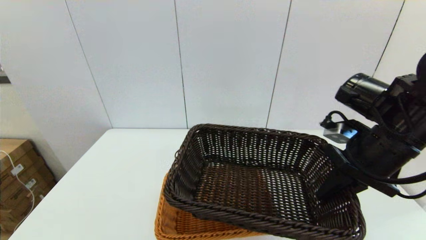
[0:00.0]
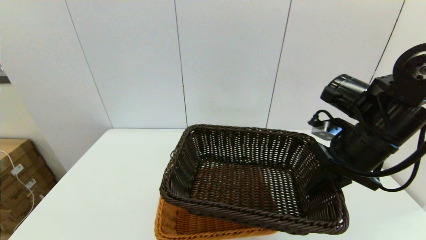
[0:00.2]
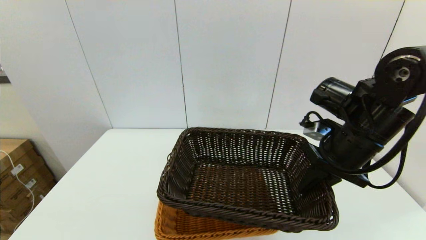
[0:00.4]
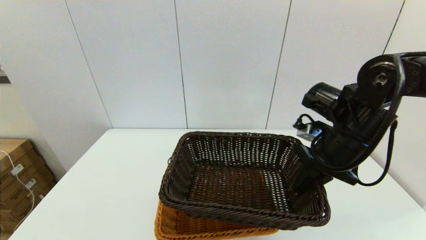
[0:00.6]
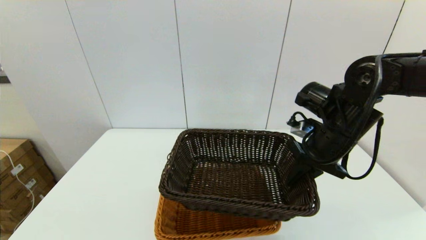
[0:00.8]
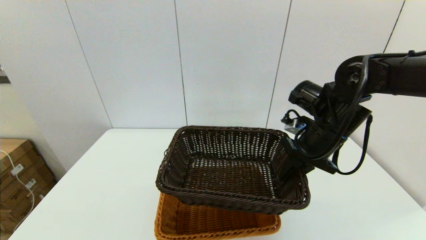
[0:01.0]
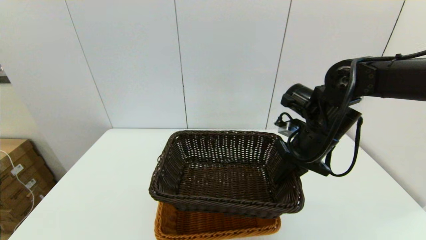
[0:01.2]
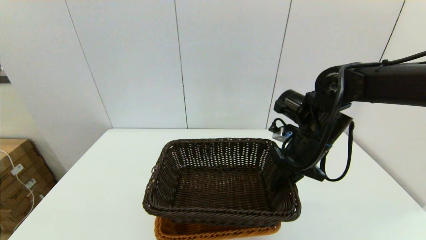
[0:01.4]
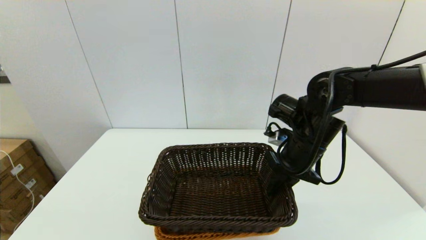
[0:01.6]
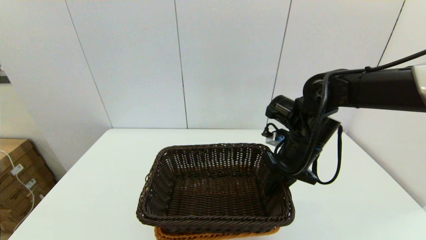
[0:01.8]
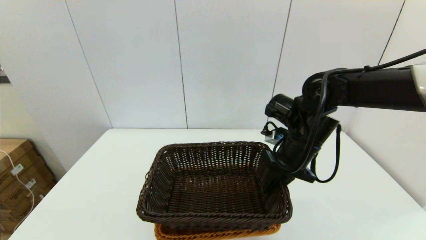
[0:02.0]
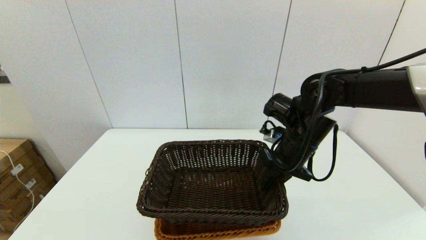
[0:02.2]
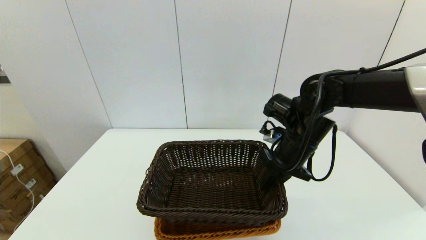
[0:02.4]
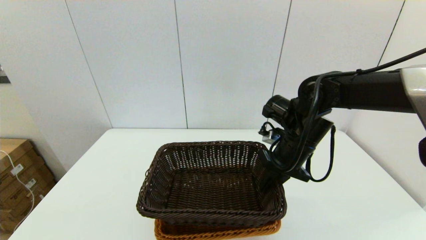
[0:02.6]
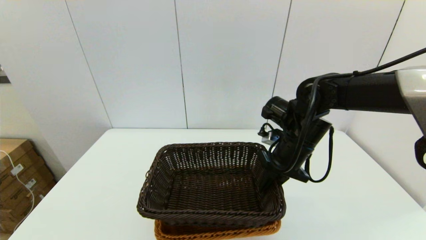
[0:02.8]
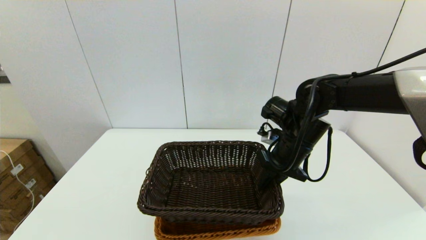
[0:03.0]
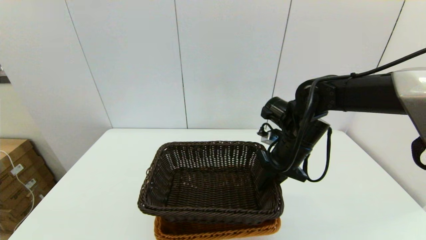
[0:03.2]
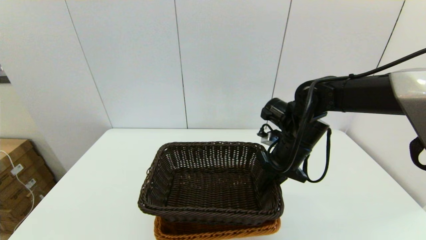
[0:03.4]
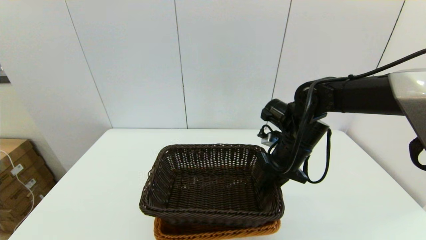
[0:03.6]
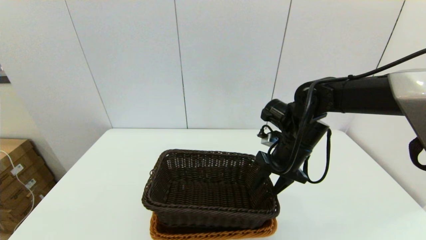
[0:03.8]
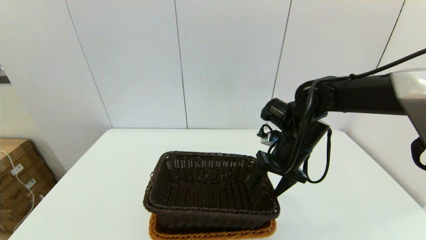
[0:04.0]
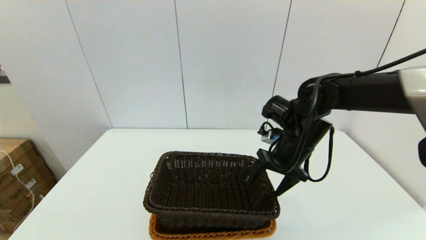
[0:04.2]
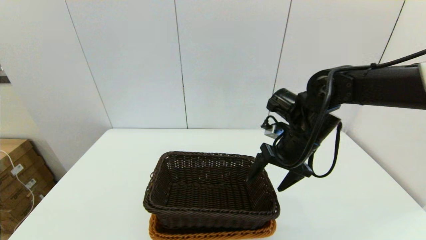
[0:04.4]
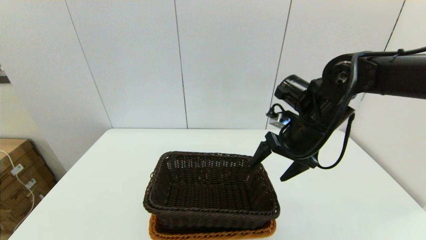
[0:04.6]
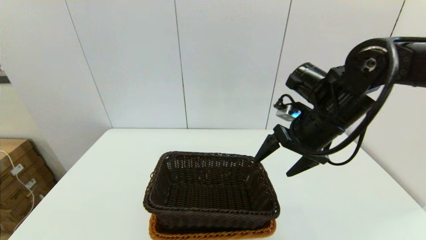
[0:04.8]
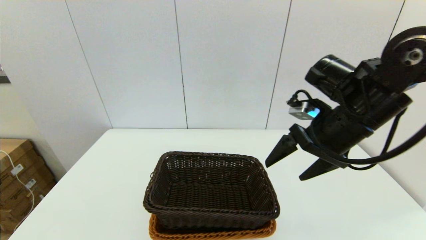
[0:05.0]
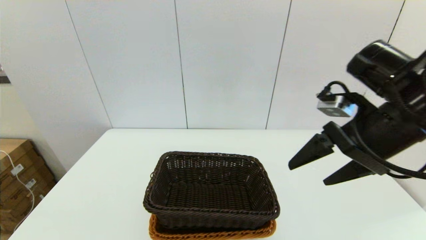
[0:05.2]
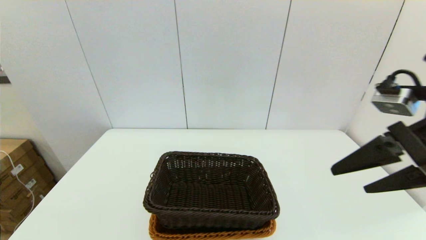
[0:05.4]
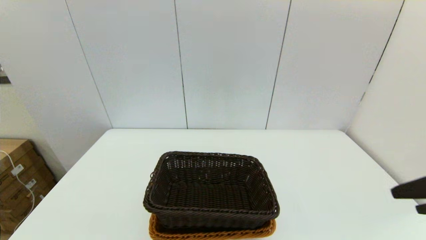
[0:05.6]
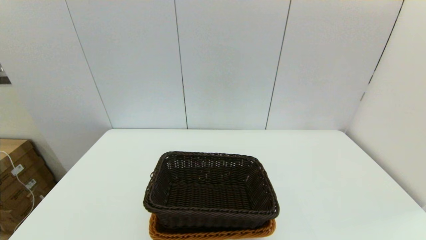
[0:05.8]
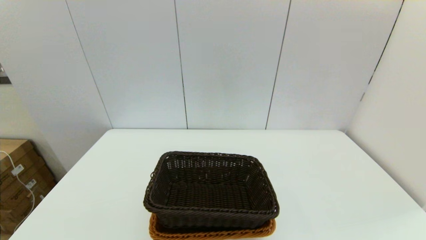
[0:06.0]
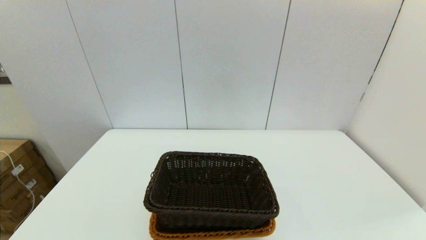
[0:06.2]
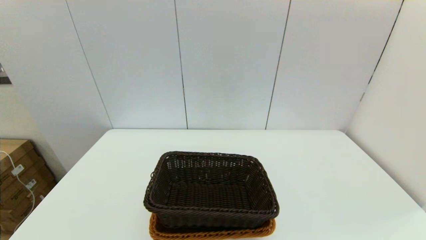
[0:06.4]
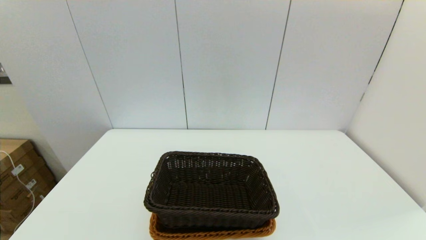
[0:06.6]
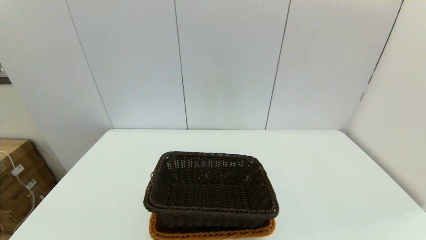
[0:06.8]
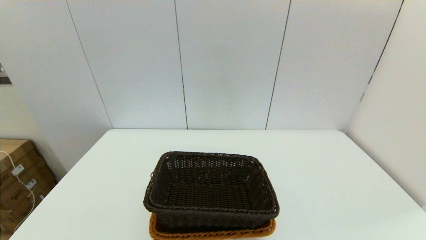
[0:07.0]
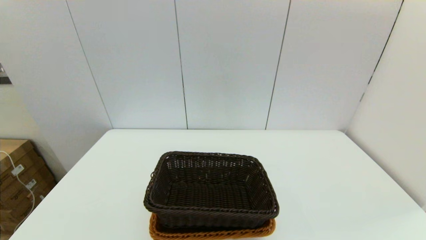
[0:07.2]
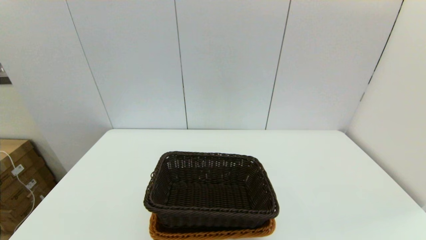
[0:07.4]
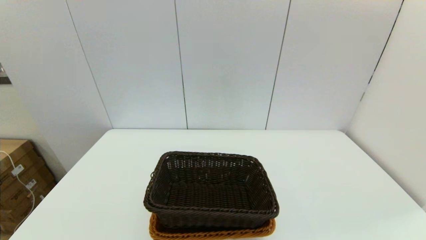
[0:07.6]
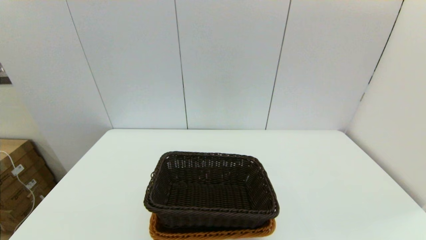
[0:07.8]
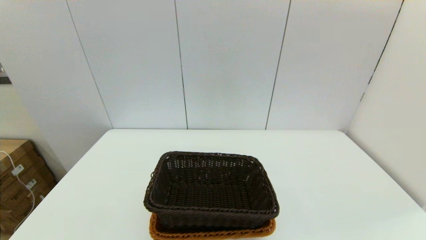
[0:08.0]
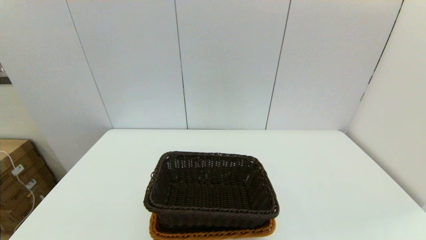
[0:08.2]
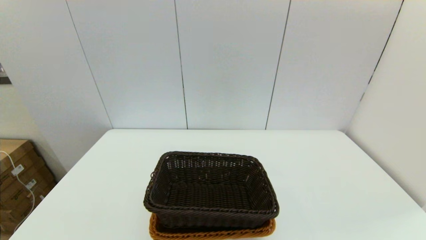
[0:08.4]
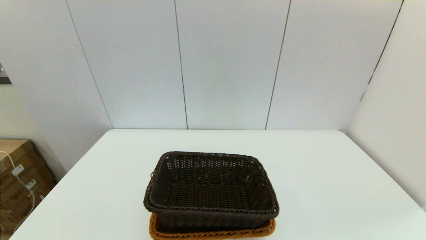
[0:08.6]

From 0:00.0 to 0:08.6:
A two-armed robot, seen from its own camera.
Task of the whole recording: stack a basket on top of another basket.
Step, from 0:00.0 to 0:04.4: Place the dark basket into the light color basket with the right gripper.
From 0:00.0 to 0:01.4: The right gripper is displaced forward and to the left by roughly 10 cm.
From 0:01.4 to 0:02.8: The grippers stay close to where they were, moving slightly.
From 0:02.8 to 0:04.4: The right gripper opens its fingers.
From 0:04.4 to 0:05.8: The right gripper heads backward and to the right, covering approximately 30 cm.

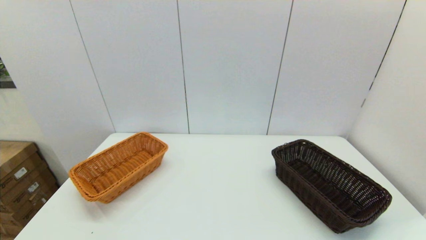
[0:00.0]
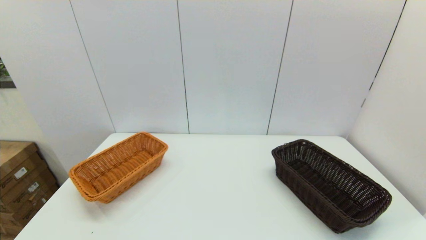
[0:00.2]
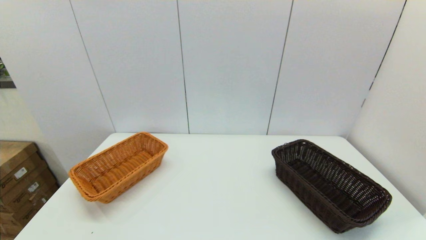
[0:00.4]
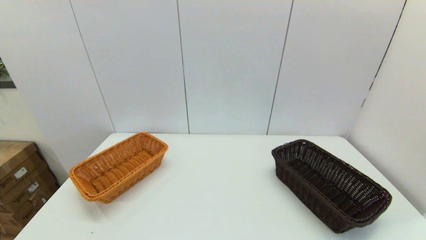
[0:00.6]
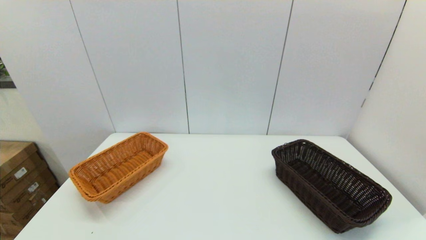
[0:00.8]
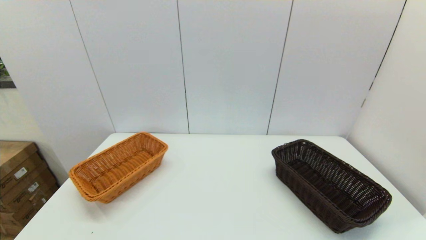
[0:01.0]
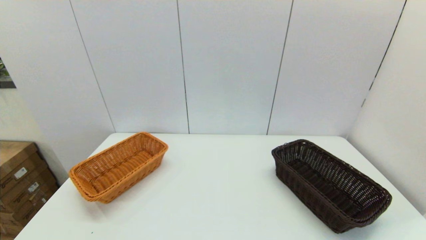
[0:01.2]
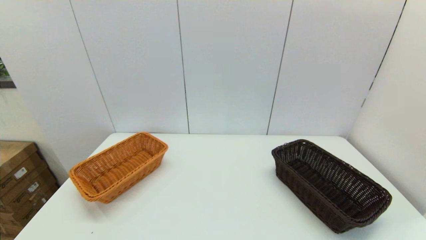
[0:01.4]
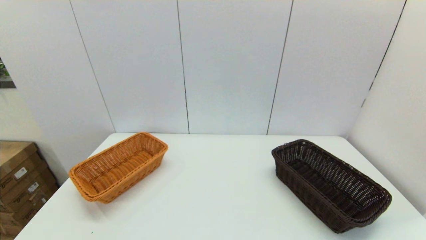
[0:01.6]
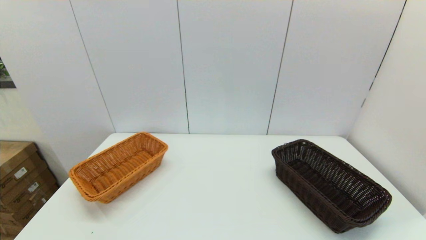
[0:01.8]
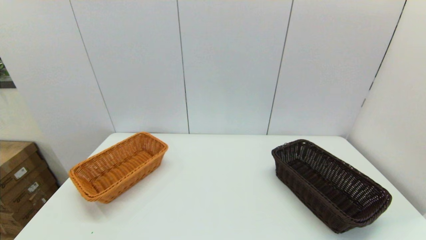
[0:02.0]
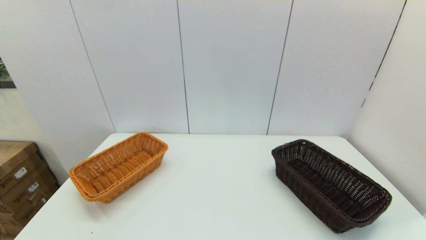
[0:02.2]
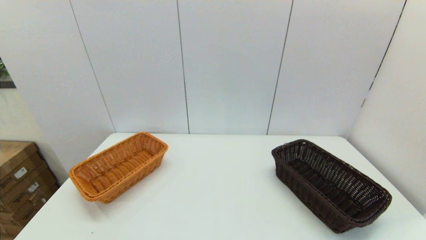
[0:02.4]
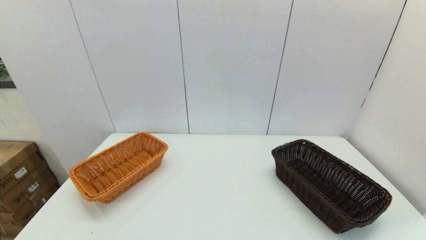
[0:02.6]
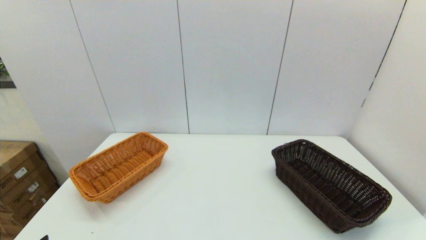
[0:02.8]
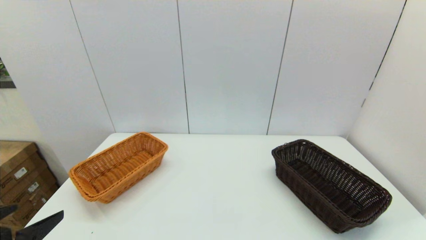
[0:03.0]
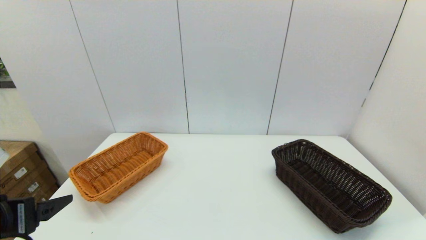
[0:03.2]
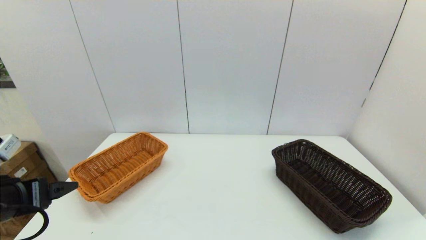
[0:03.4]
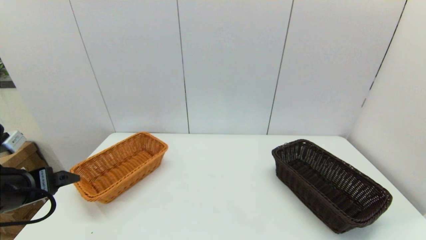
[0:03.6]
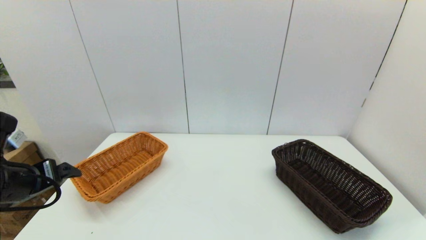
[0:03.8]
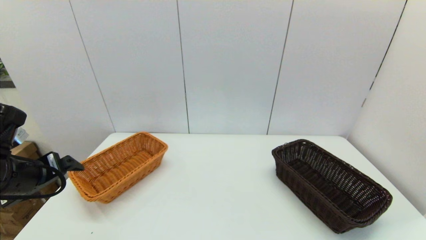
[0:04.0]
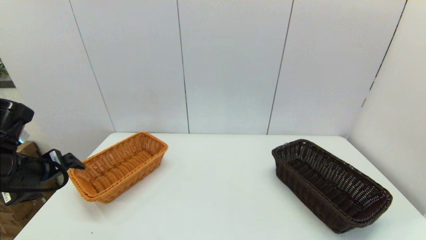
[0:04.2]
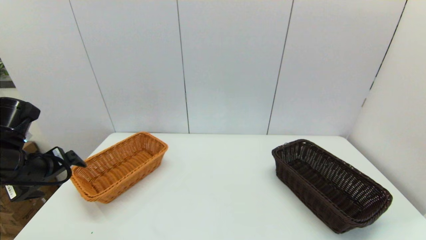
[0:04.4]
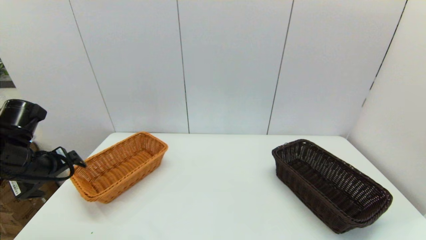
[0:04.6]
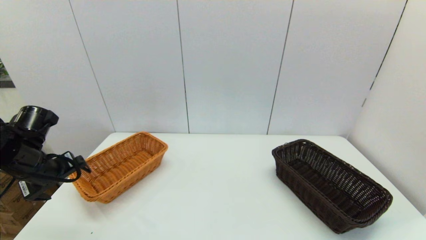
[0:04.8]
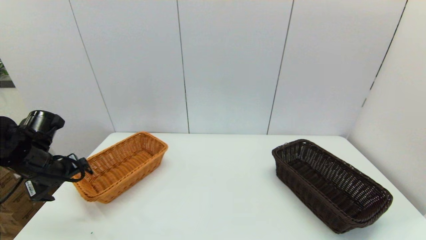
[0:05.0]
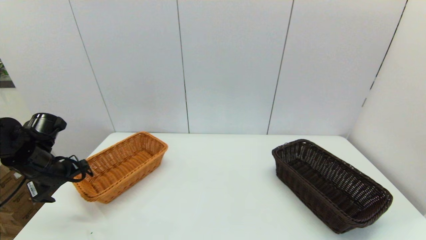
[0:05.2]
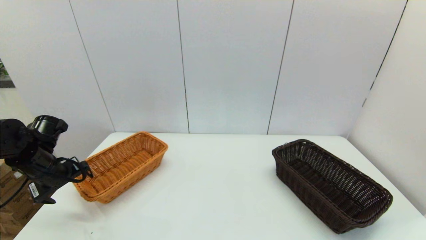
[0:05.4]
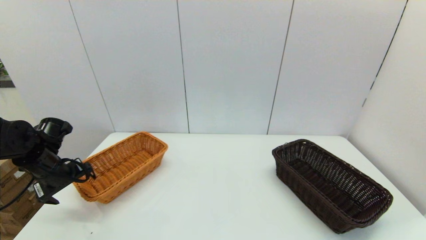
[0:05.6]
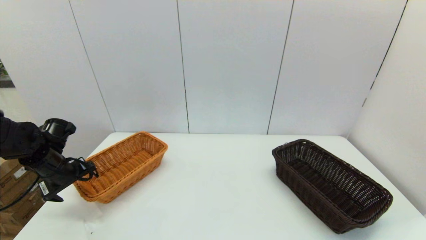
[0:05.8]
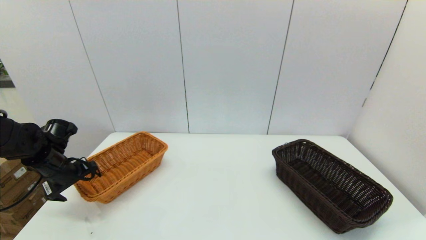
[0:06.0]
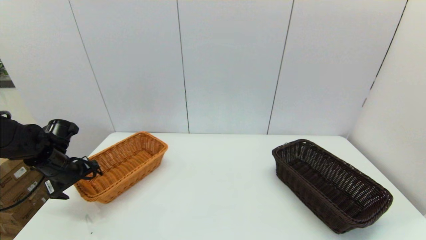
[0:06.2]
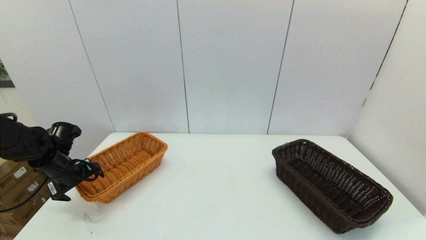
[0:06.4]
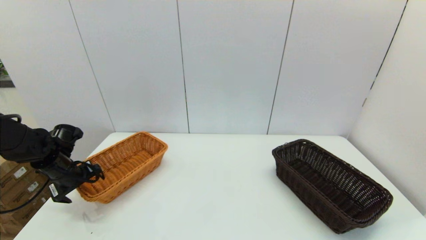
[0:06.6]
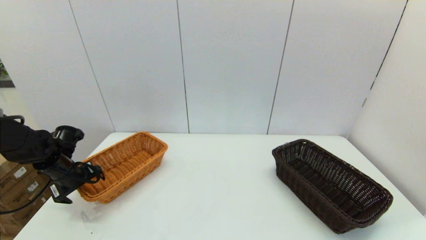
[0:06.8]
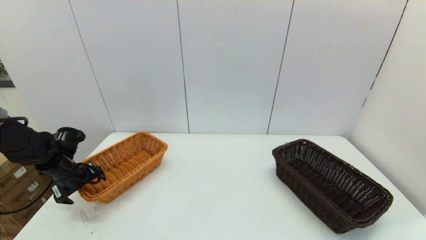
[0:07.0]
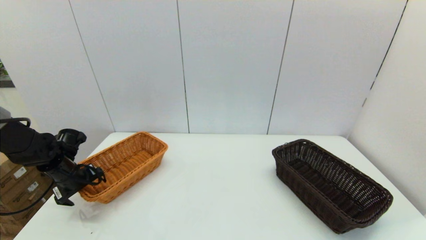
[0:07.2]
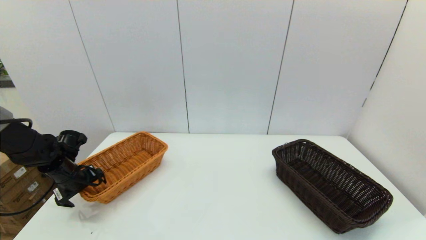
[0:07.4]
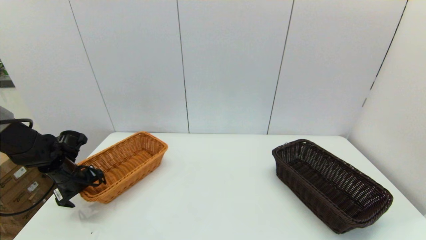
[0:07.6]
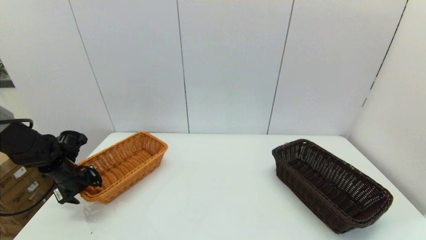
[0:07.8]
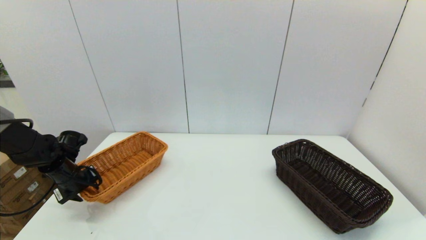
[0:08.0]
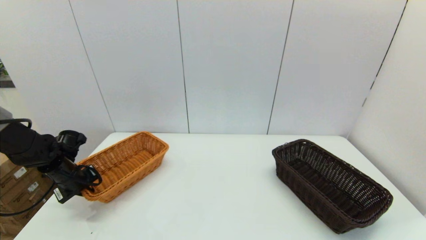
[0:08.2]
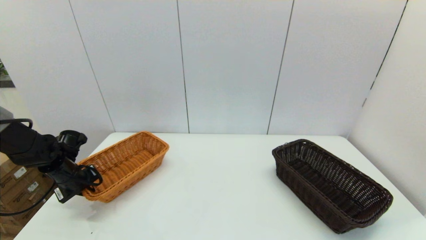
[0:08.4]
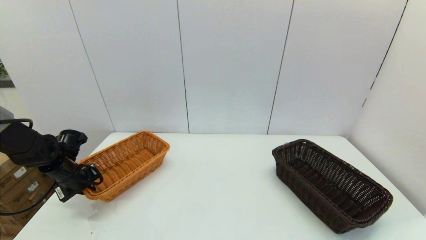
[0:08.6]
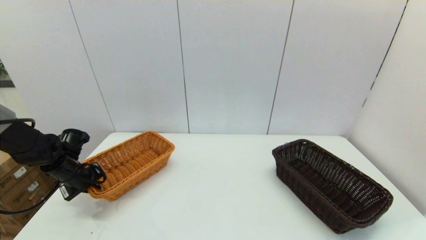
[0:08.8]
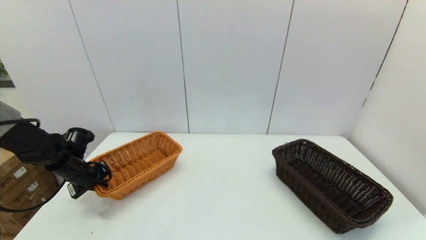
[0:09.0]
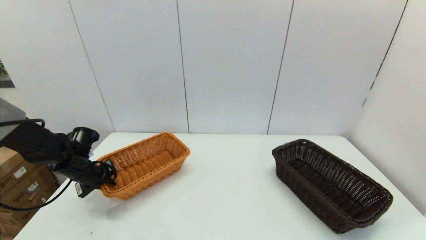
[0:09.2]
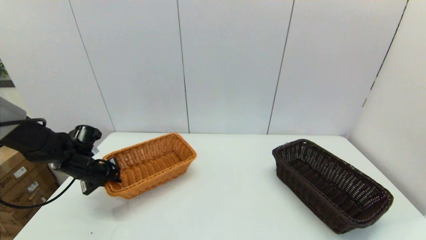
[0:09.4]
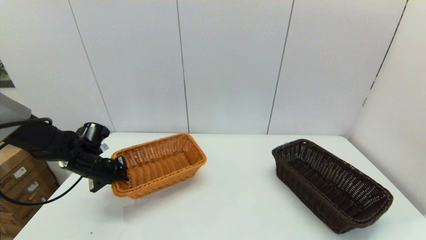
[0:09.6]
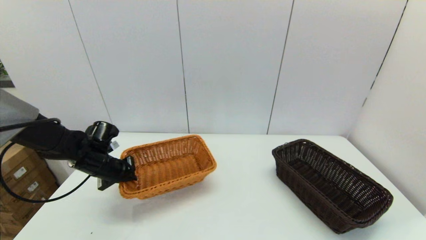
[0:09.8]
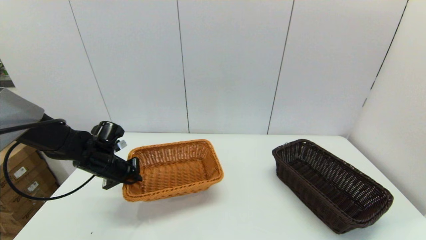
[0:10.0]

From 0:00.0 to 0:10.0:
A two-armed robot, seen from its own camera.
Task of the whole recording: stack a basket on top of another basket.
Step, from 0:02.8 to 0:09.2: Grasp the light basket with the left gripper.
From 0:00.0 to 0:01.4: Both grippers stay put.
From 0:02.8 to 0:04.2: The left gripper is displaced forward by about 20 cm.
From 0:04.2 to 0:05.8: The left gripper moves forward and downward, roughly 15 cm.
From 0:05.8 to 0:07.2: The grippers move only a little.
From 0:07.2 to 0:08.6: The left gripper closes its fingers.
From 0:08.6 to 0:10.0: The left gripper goes about 10 cm to the right.
